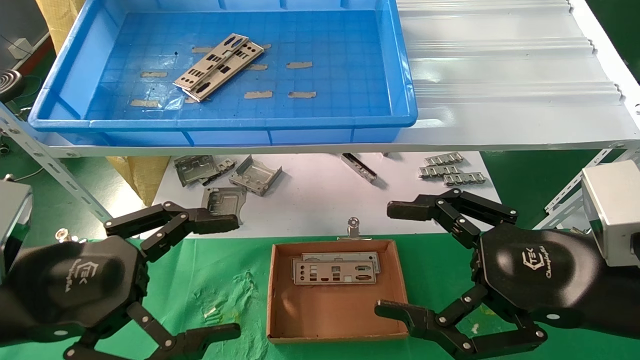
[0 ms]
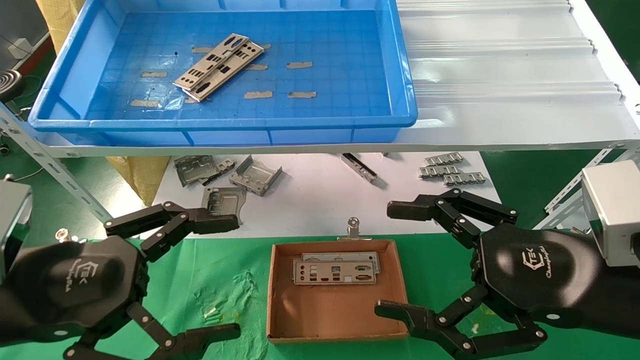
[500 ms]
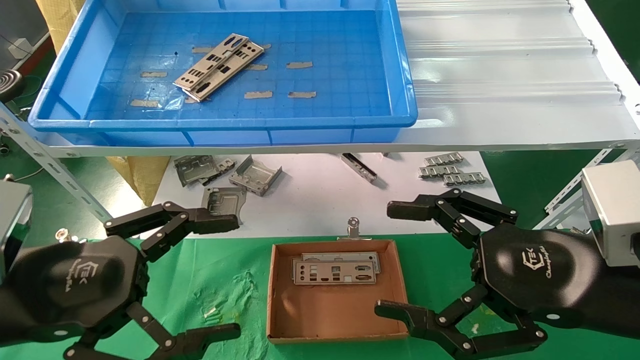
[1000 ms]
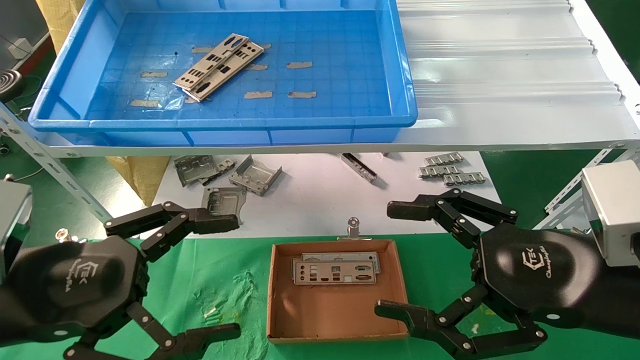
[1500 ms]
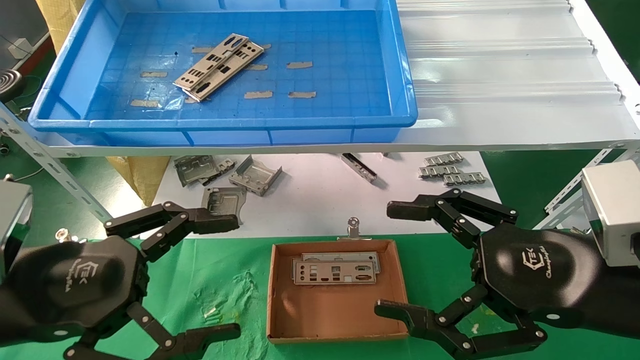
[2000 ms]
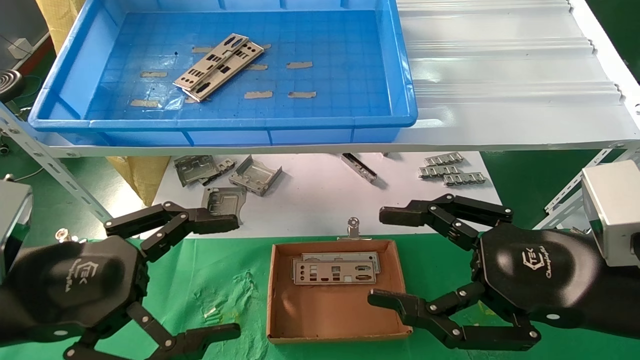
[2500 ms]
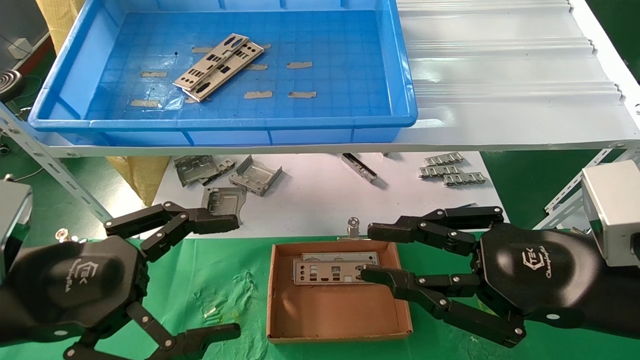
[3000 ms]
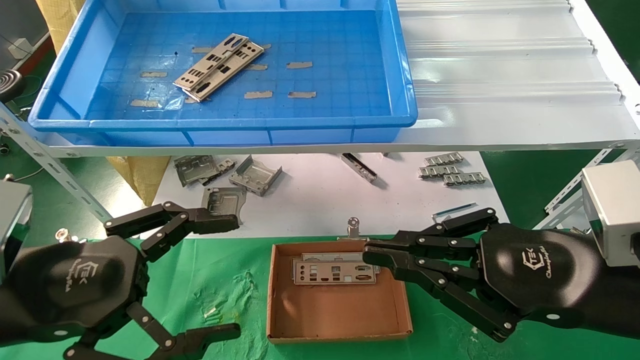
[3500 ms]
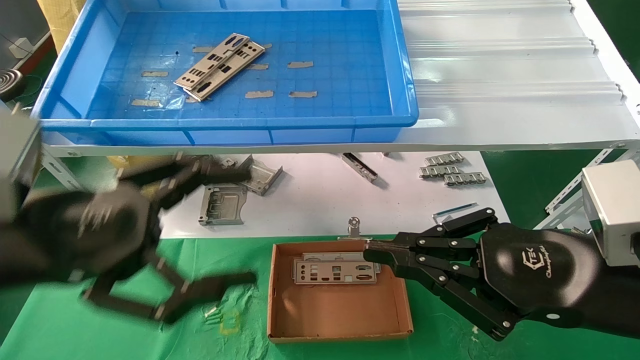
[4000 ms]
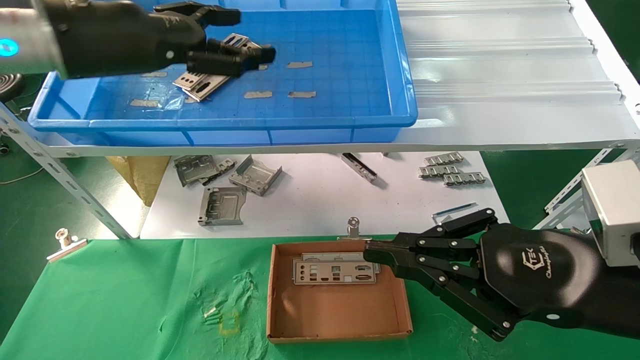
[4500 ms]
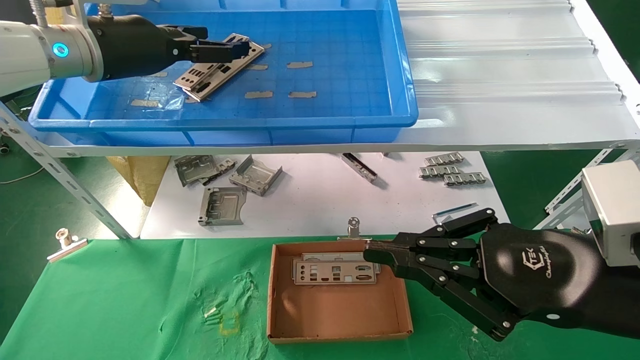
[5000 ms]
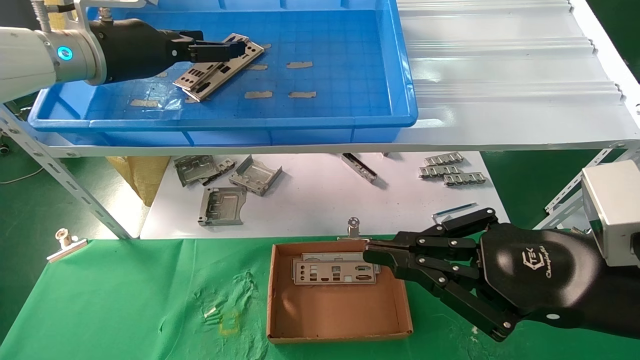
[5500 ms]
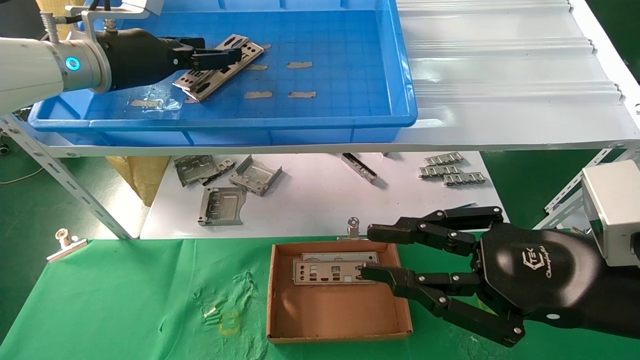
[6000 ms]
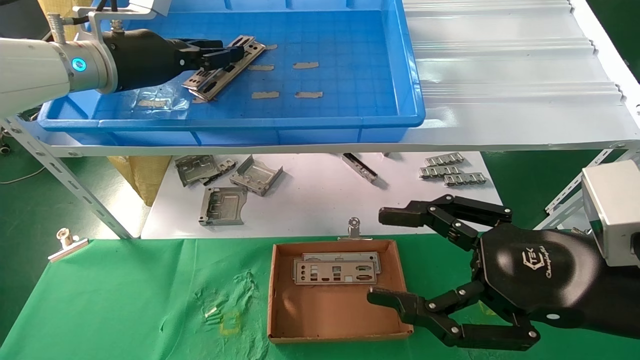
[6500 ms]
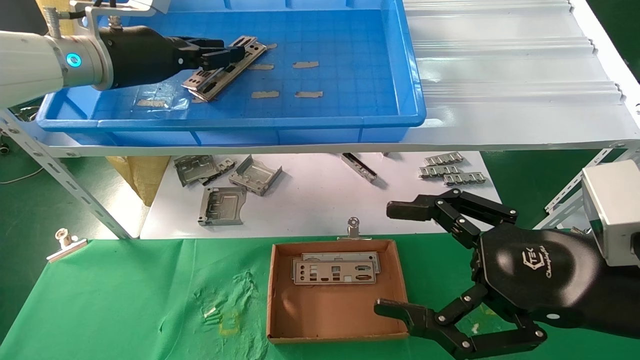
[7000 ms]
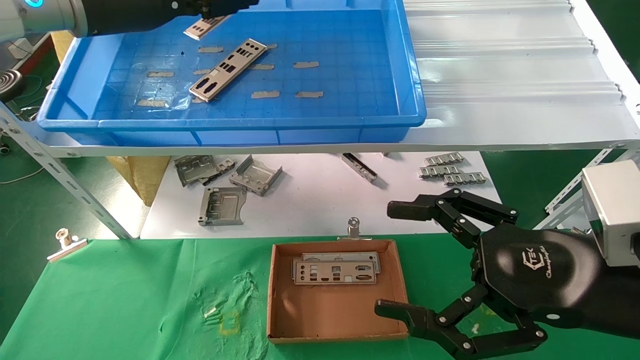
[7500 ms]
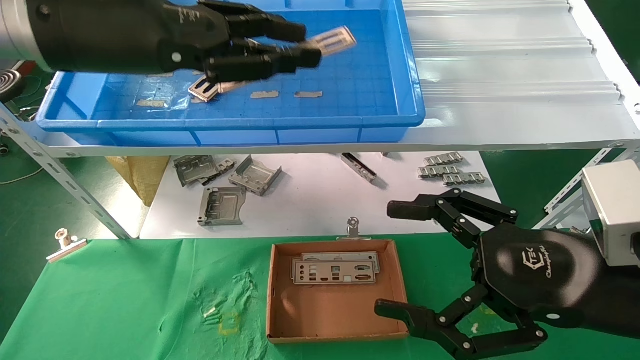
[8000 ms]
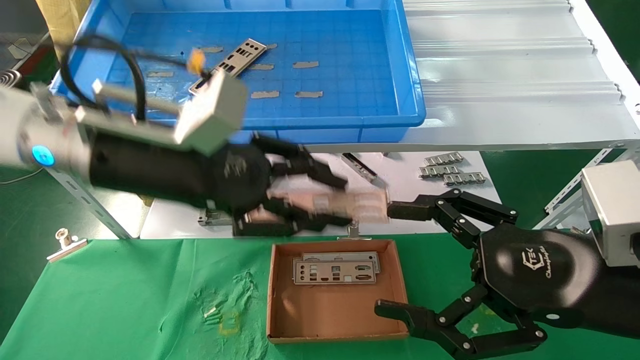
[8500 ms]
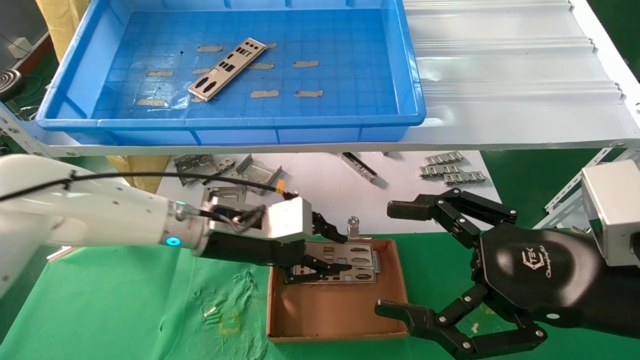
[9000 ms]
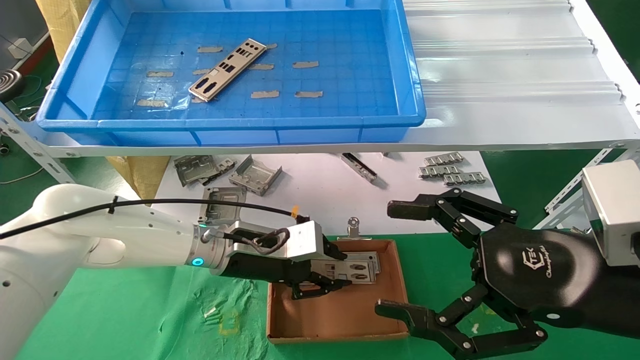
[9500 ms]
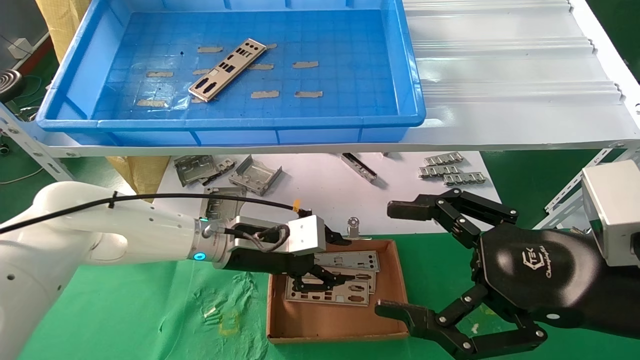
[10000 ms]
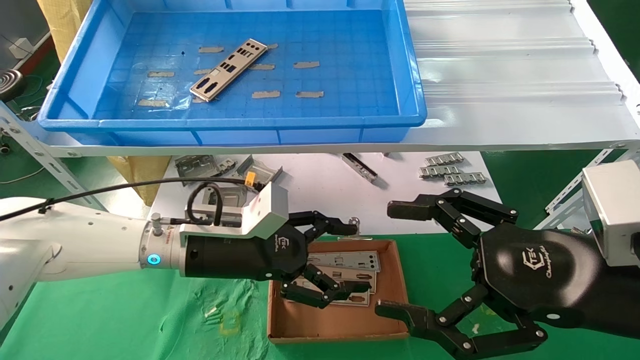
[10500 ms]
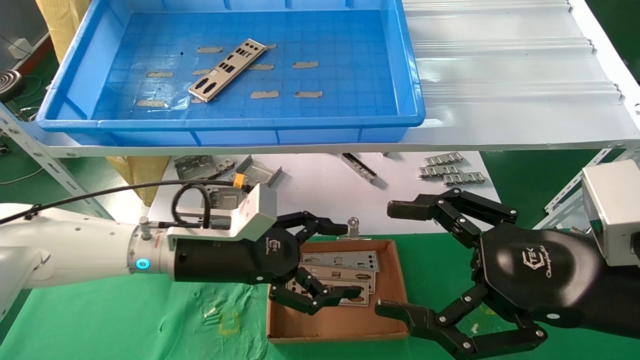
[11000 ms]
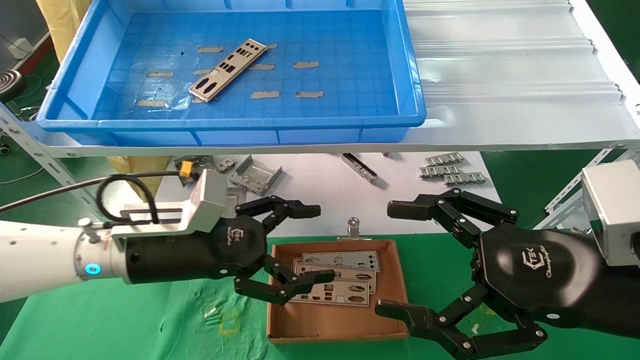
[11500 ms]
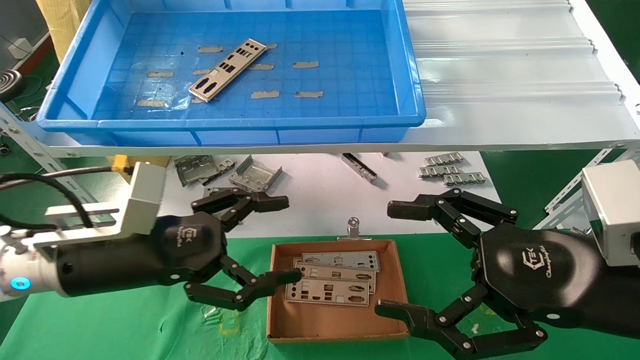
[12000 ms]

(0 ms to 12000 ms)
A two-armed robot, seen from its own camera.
Task of the whole recording: pick up the parts on the tray and put them in the cardboard box.
Step, 4500 ms - 6500 ms: Pick up the IO bracket from the container box.
Step, 7000 ms - 10000 ms: Place the IO bracket into the ingredient slot.
0 ms - 2000 ms: Both grippers stay about where they are.
2000 ms - 4000 ms: The left gripper is displaced upward by some 5 cm. Meanwhile the right gripper closes its fingers.
4000 ms - 6000 ms: The left gripper heads forward and upward, covering some 25 cm.
6000 ms - 8000 ms: The right gripper opens its fingers. Meanwhile the left gripper moves backward and to the right, roughly 15 cm, and closes.
8000 ms - 10000 ms: The left gripper travels downward by about 25 cm.
10000 ms - 12000 ms: The left gripper goes roughly 15 cm backward and to the left, and opens its fingers.

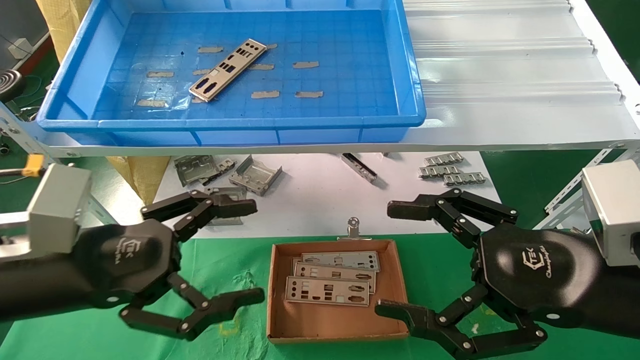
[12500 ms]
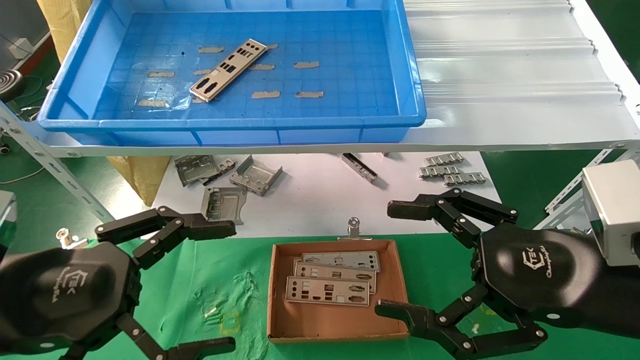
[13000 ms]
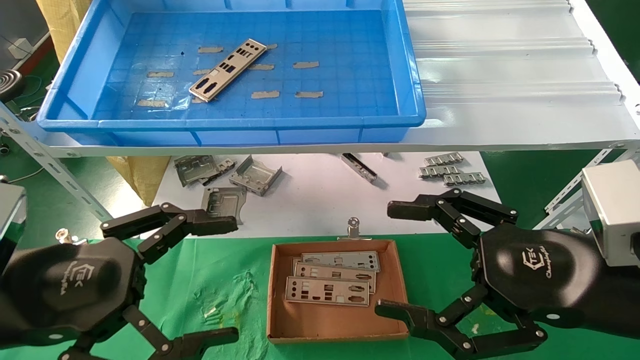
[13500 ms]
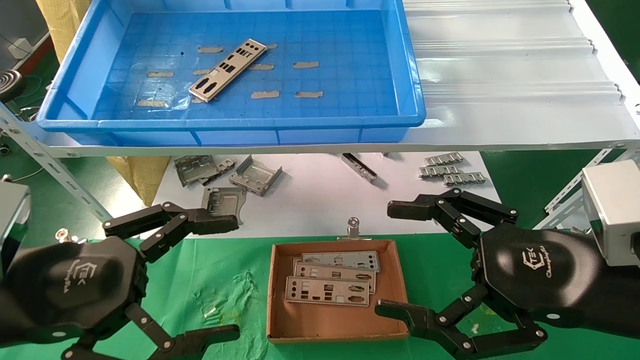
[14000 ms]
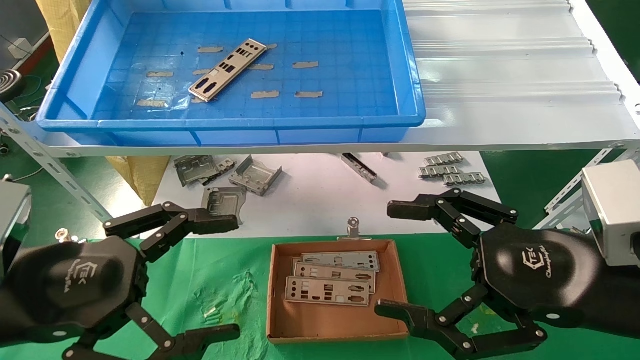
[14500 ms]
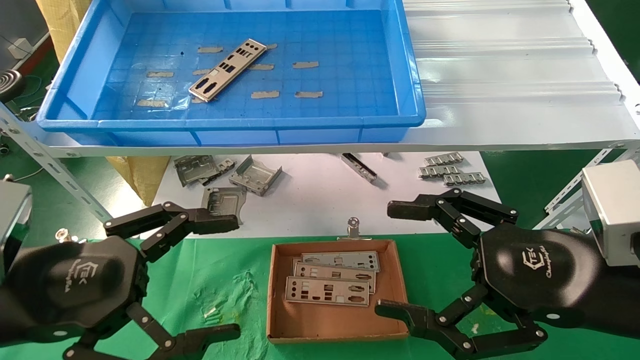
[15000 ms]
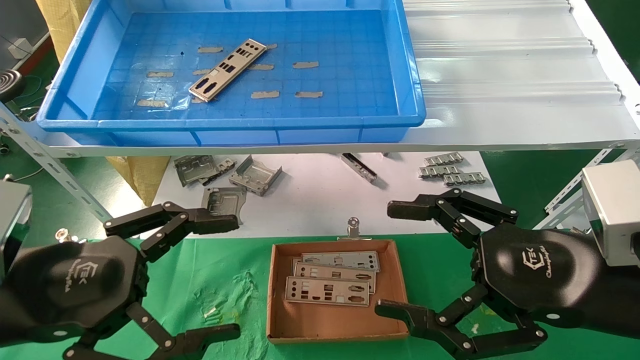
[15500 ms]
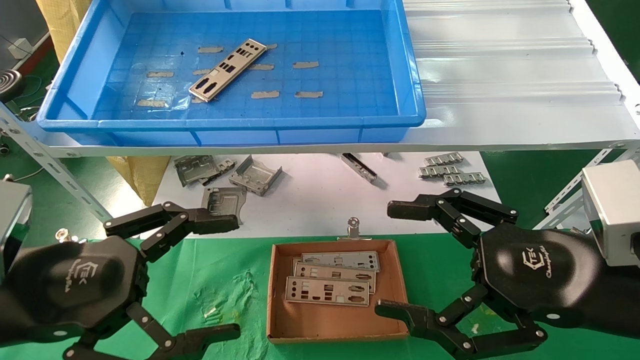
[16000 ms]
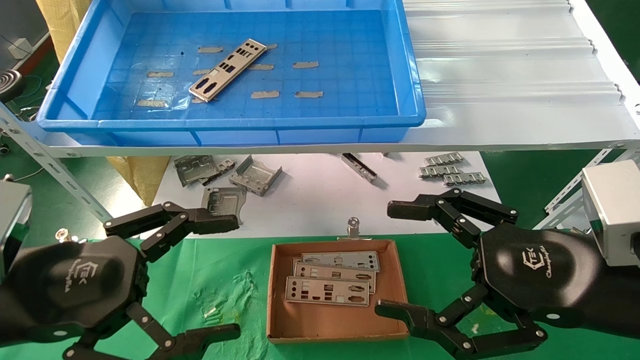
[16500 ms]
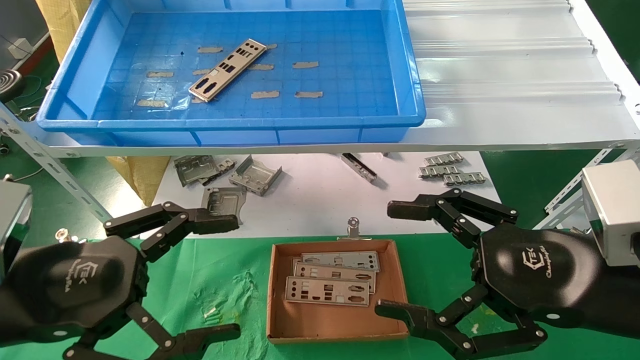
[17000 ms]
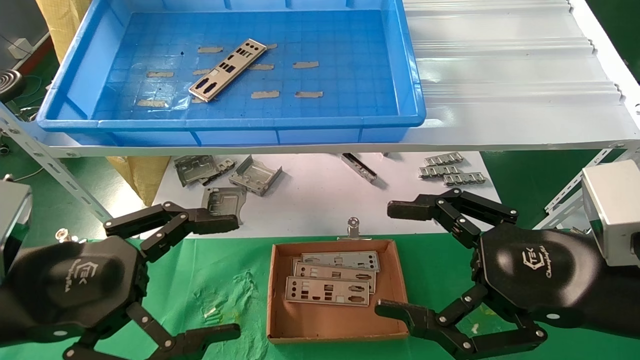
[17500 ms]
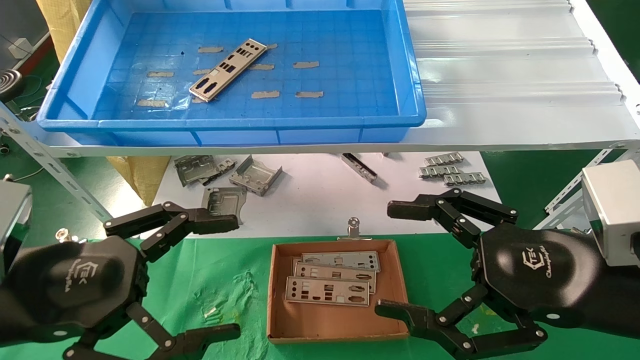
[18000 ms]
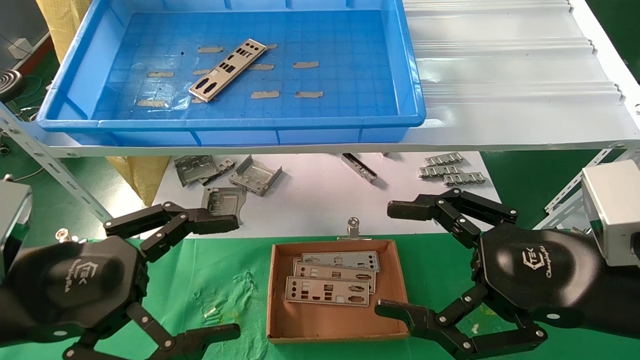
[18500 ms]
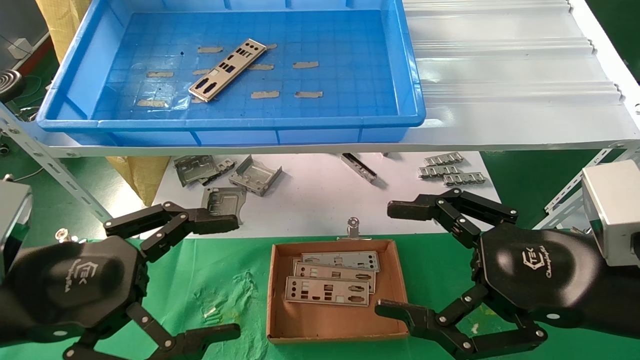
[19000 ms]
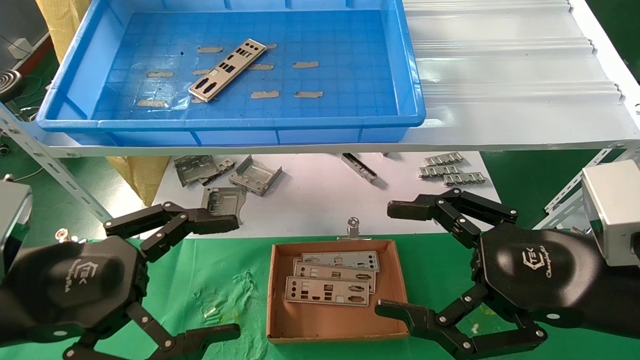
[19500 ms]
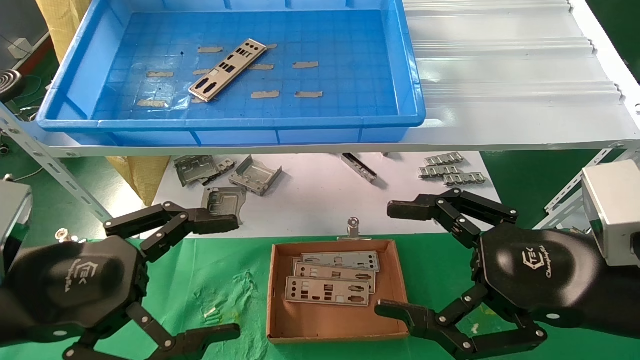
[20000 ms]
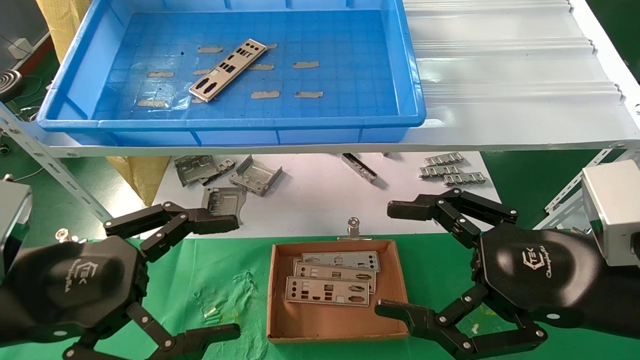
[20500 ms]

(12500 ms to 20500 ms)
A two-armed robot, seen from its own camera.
Task of the whole recording: pick up the parts on the tray and put them in the cardboard box.
12500 ms - 14500 ms: The grippers stay close to where they were, moving slightly.
14500 ms - 20500 ms: Both grippers stay about where they are.
